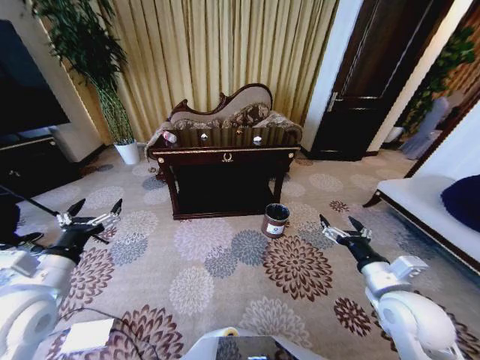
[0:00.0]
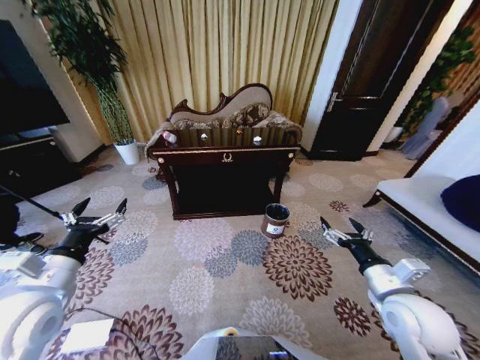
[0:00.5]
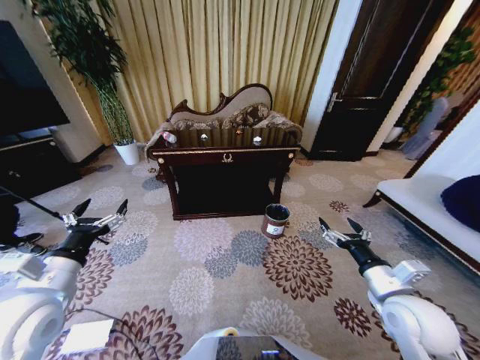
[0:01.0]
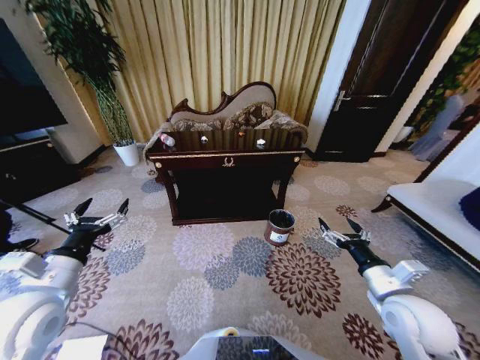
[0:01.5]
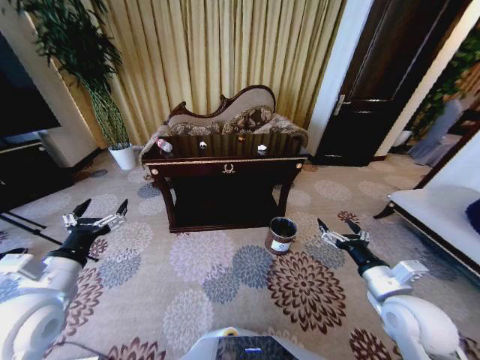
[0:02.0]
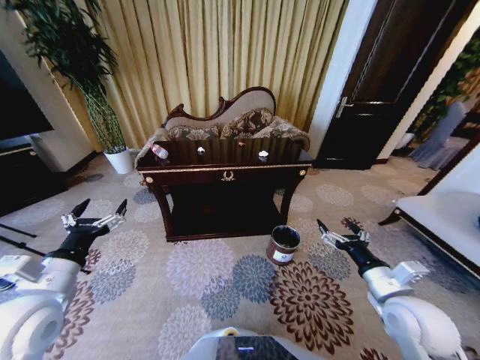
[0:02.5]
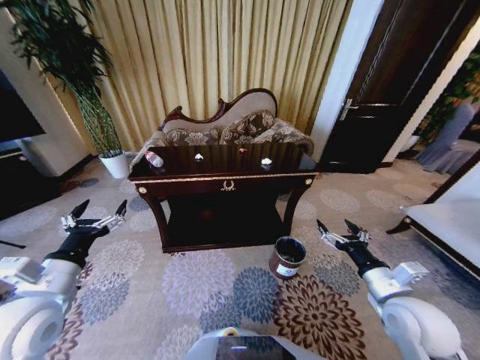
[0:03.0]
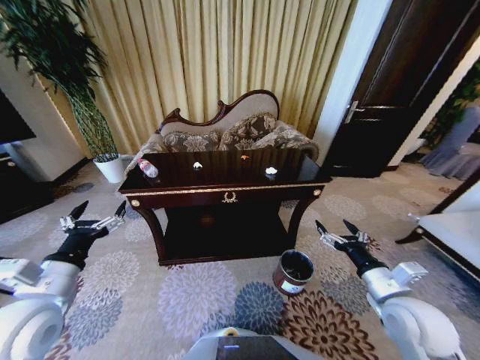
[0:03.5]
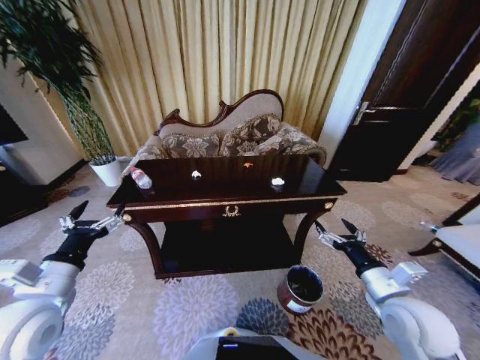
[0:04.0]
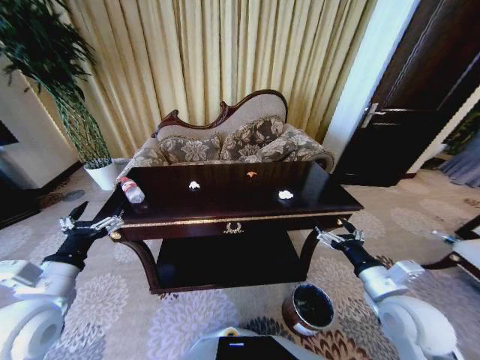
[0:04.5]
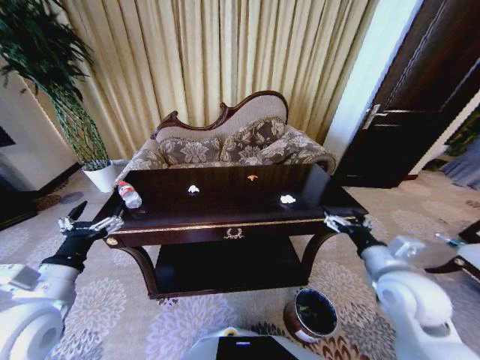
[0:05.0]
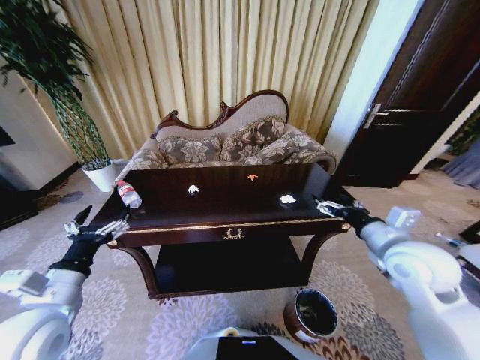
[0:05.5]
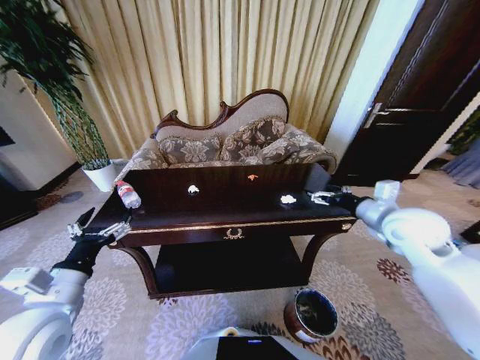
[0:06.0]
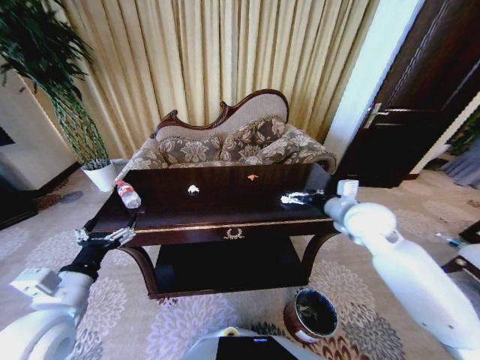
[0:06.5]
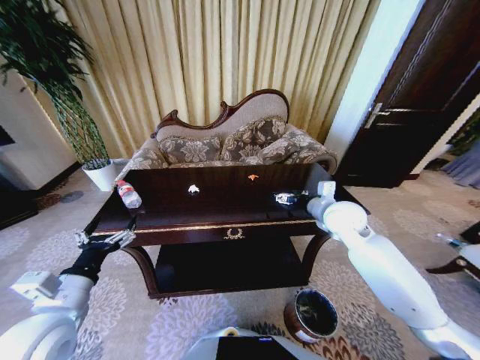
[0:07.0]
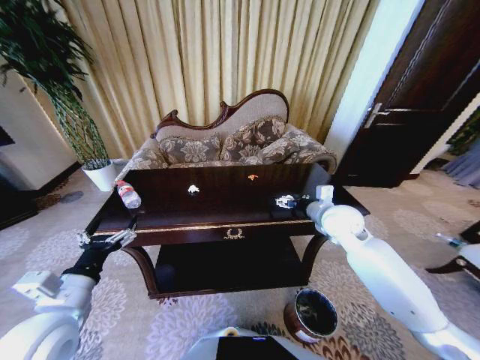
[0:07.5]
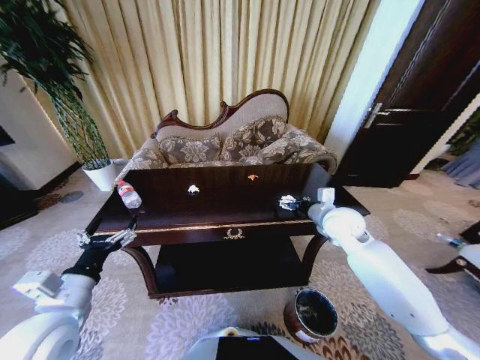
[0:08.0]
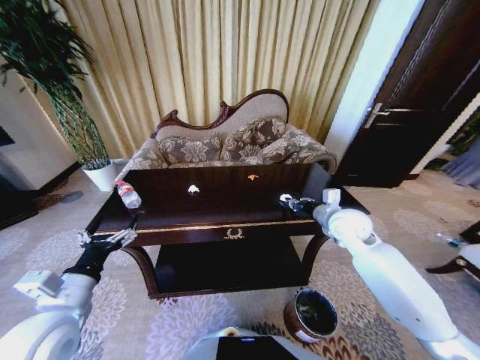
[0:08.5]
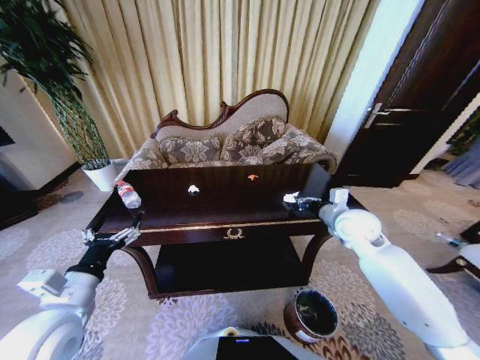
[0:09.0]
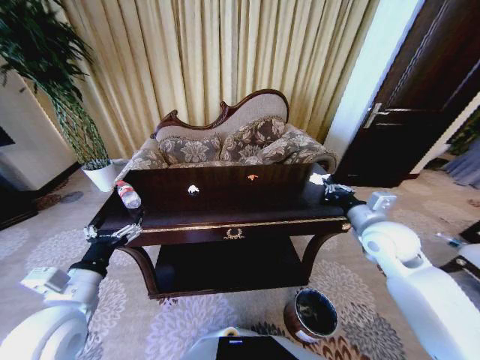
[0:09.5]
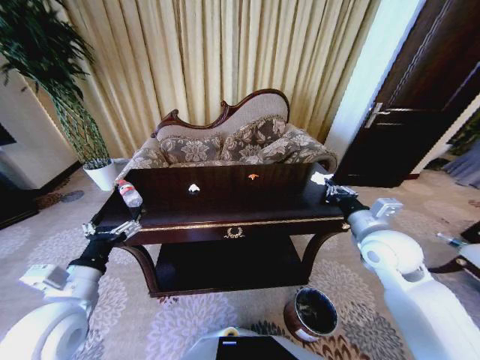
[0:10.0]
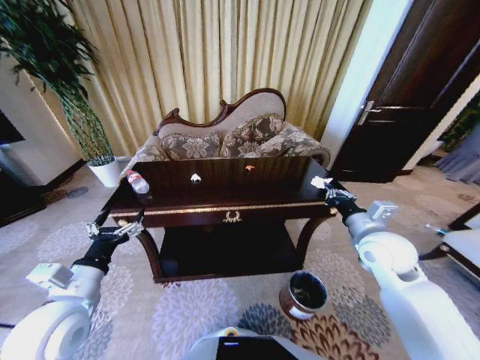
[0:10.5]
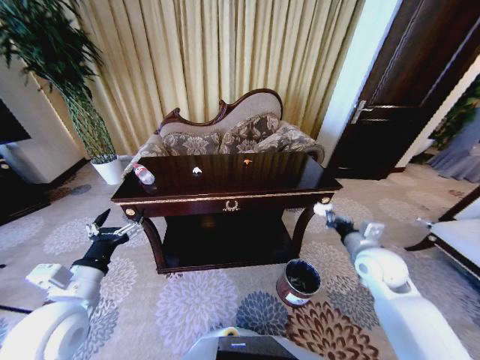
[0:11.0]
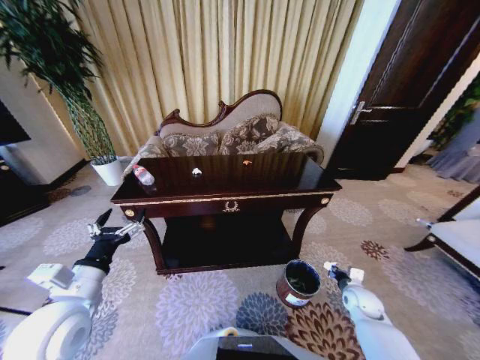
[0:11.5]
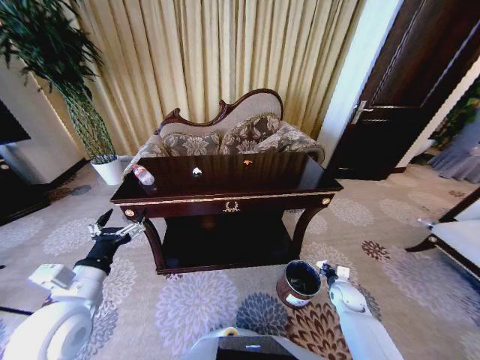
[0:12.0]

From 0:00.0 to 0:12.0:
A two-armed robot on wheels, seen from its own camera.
Task of the whole recording: Move to the front of the table and place the trash on the table into the trash bin.
From 0:04.0 to 0:06.0: The right gripper travels forward and upward by roughly 20 cm.
From 0:06.0 to 0:08.0: The right gripper heads to the left, downward and forward, covering about 10 cm.
From 0:08.0 to 0:10.0: The right gripper is displaced backward by some 10 cm, and closes up.
From 0:10.0 to 0:12.0: The right gripper moves downward, some 30 cm.

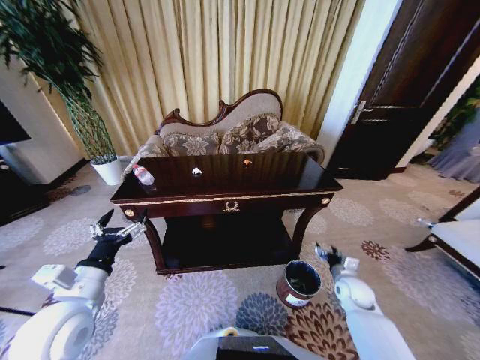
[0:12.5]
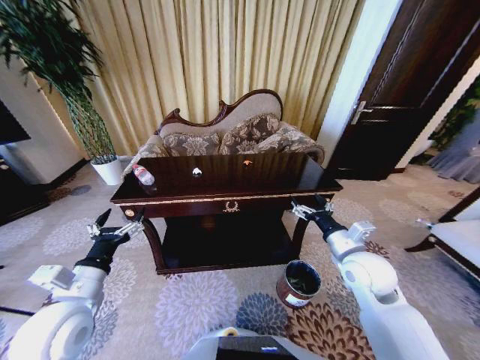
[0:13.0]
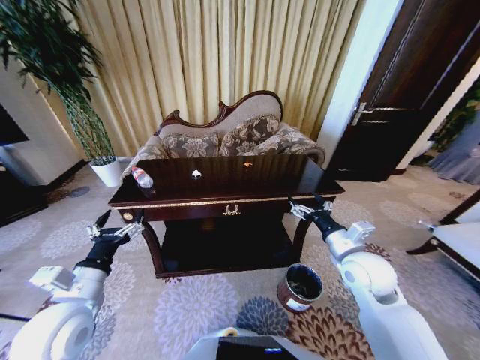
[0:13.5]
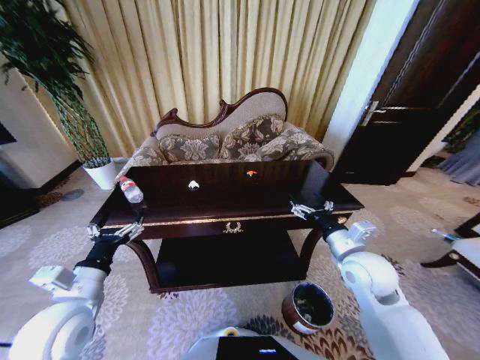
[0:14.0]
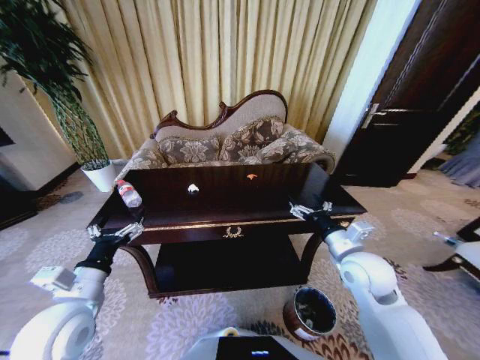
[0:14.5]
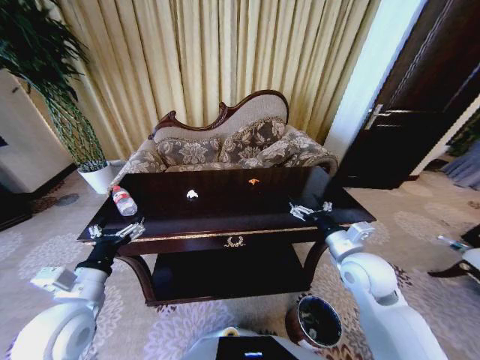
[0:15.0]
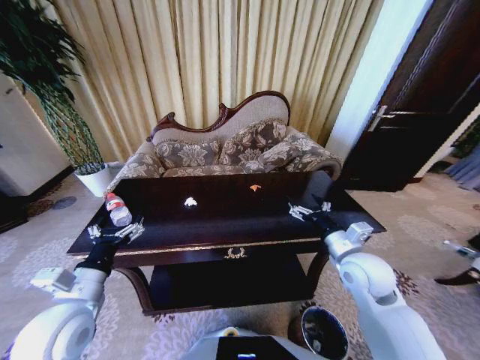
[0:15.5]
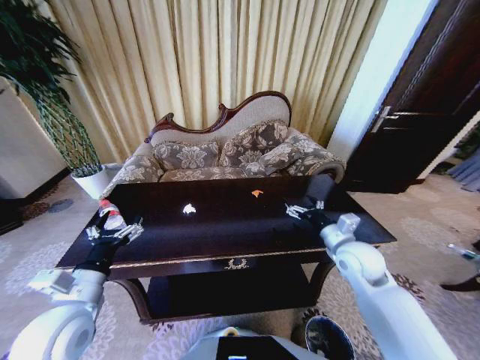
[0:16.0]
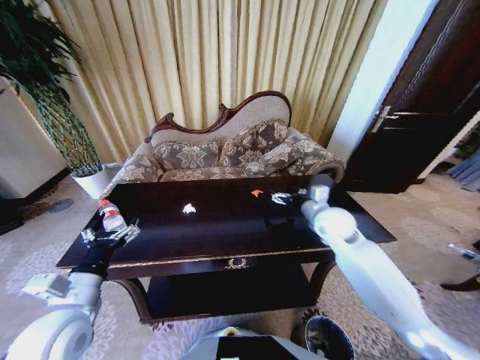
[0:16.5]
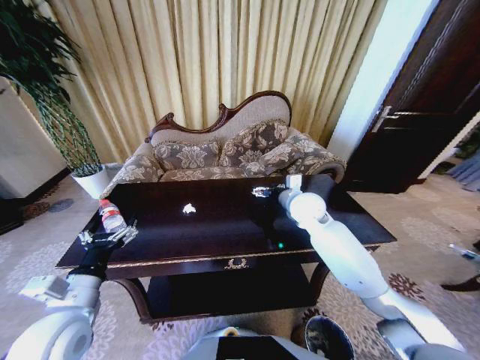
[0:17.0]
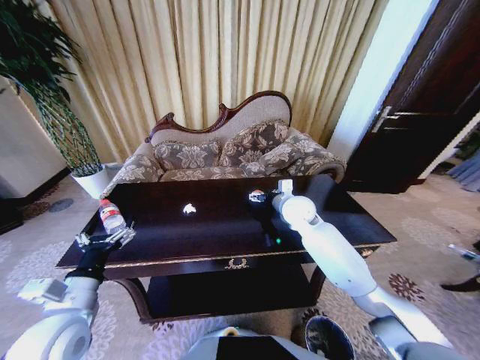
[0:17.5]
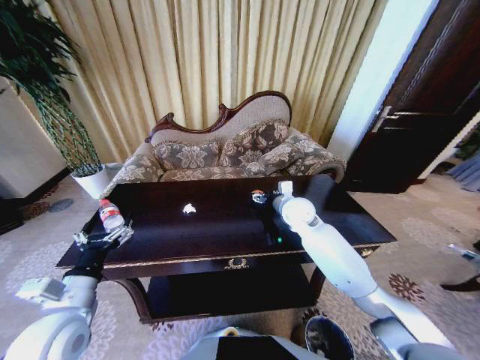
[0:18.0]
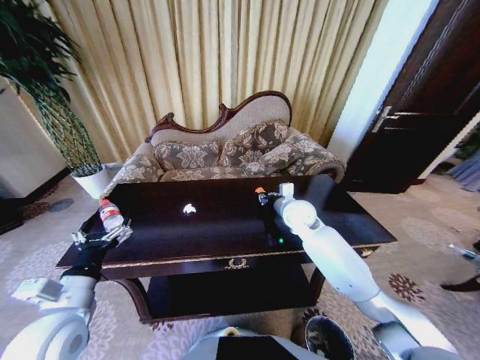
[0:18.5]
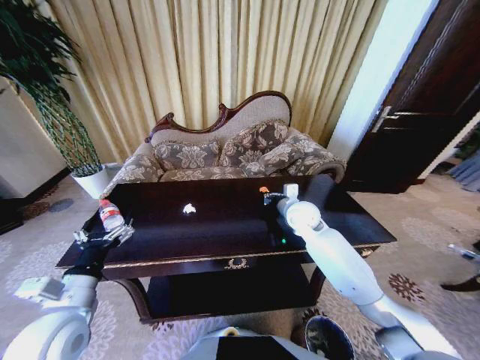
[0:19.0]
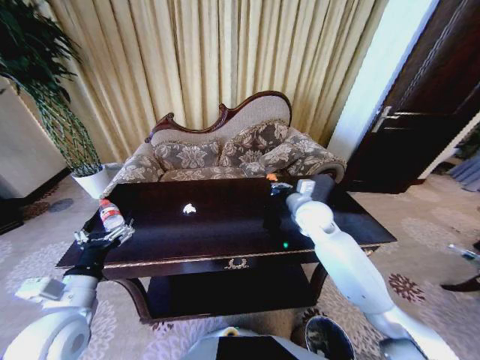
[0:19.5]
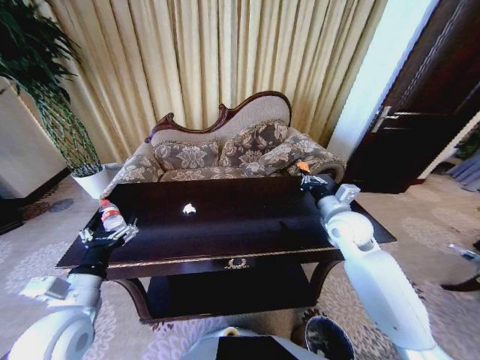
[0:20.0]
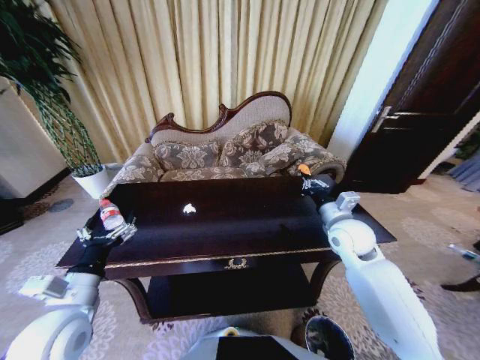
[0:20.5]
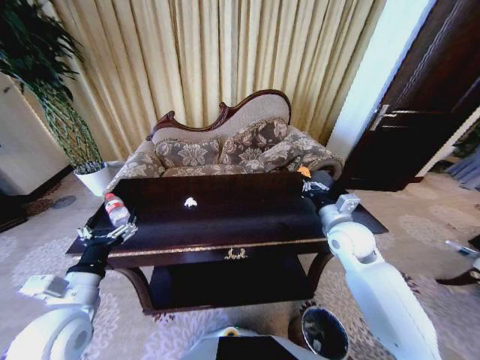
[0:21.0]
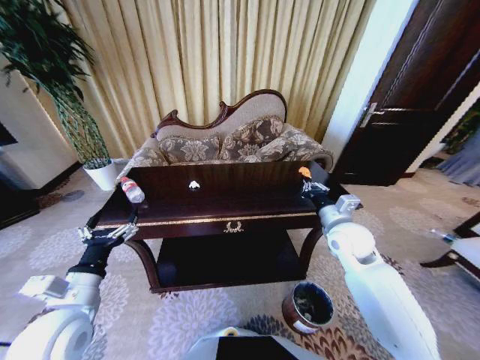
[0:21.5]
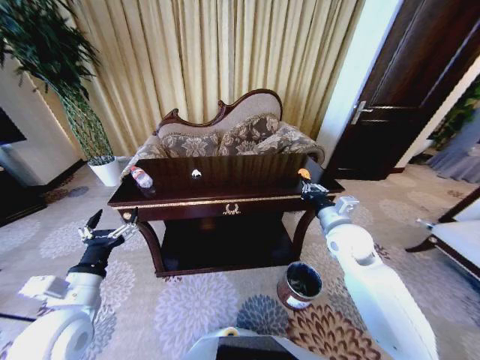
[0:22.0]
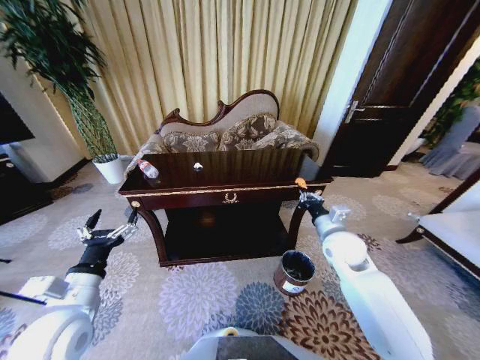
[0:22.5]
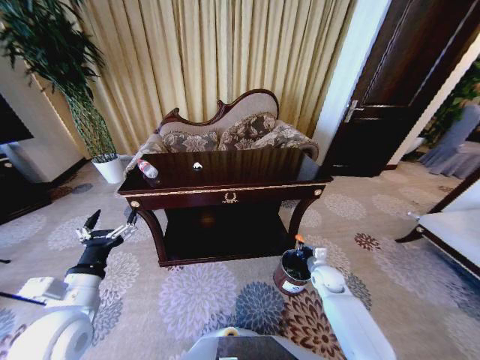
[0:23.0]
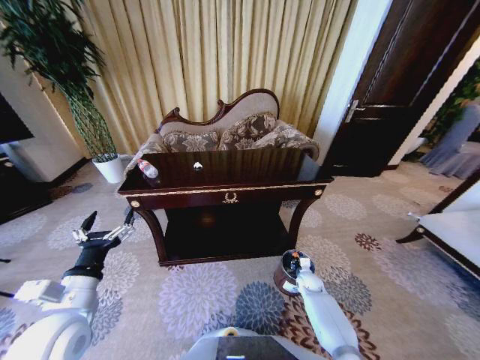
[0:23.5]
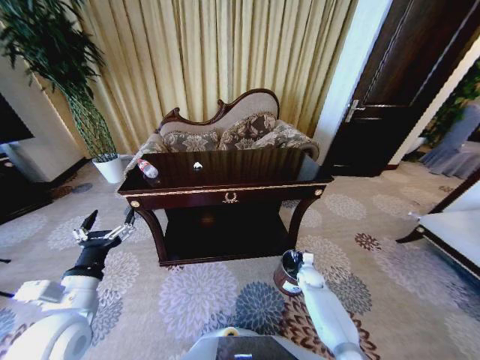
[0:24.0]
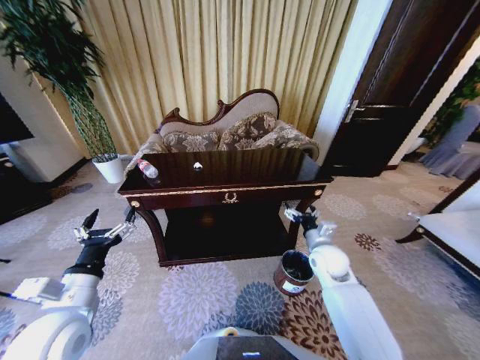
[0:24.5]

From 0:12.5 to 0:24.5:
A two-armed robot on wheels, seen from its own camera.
Task of the whole recording: Move to the front of the table and place the trash on the table into the trash bin.
From 0:12.5 to 0:14.5: The right gripper heads upward and to the left, covering about 25 cm, and opens.
From 0:14.5 to 0:16.5: The right gripper goes some 15 cm forward.
From 0:16.5 to 0:18.5: The right gripper shifts approximately 5 cm to the left, and closes its fingers.
From 0:18.5 to 0:20.5: The right gripper shifts some 15 cm to the right and backward.
From 0:22.5 to 0:24.5: The right gripper moves some 30 cm downward and comes back, and opens.

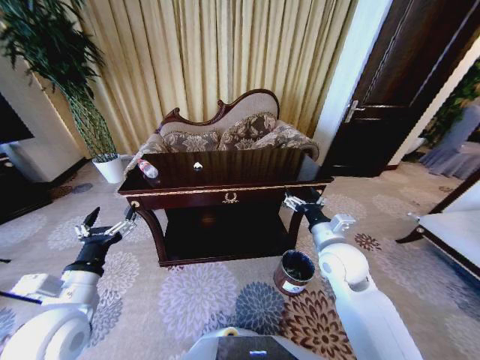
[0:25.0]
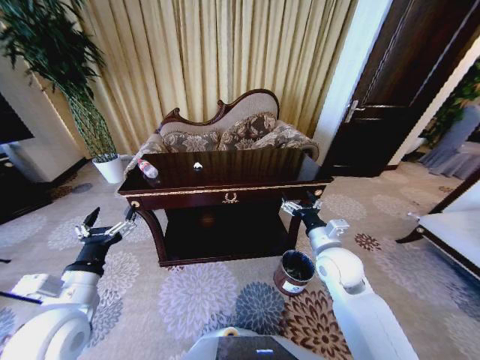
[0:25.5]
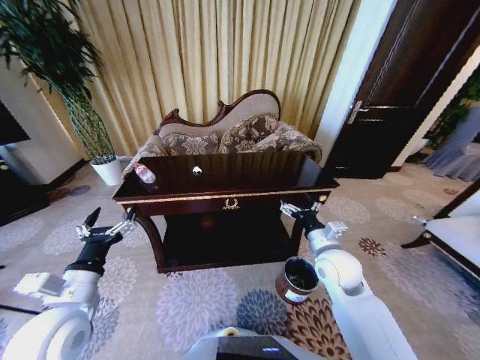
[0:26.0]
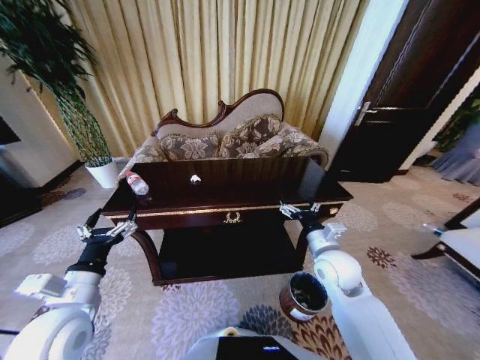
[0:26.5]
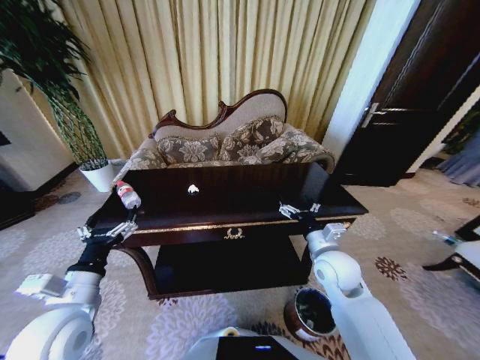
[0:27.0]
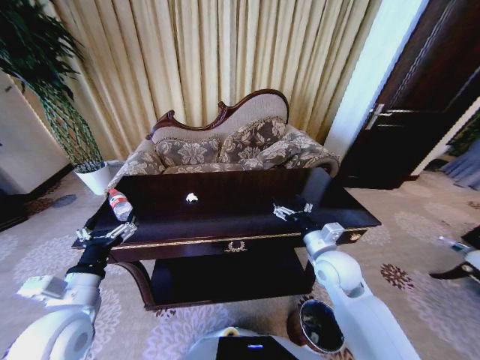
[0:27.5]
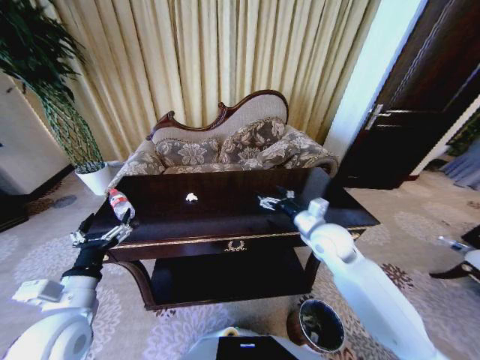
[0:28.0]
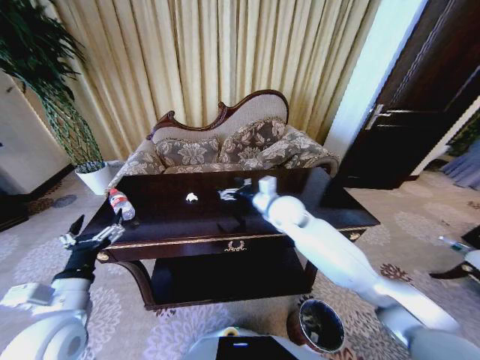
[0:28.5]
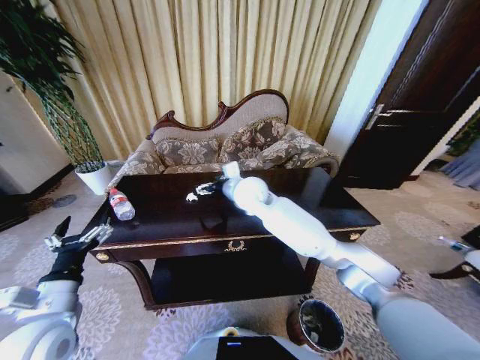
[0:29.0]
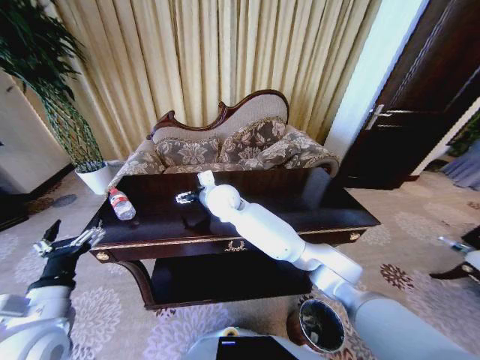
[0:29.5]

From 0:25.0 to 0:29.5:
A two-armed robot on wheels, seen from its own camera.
Task of the whole recording: Move to the front of the table and place the trash on the table into the trash bin.
From 0:27.0 to 0:29.5: The right gripper moves to the left and forward, some 35 cm.
